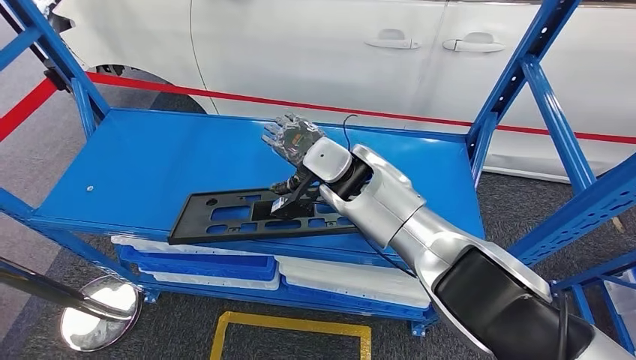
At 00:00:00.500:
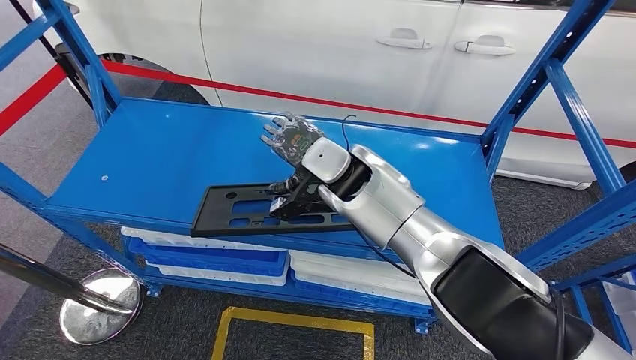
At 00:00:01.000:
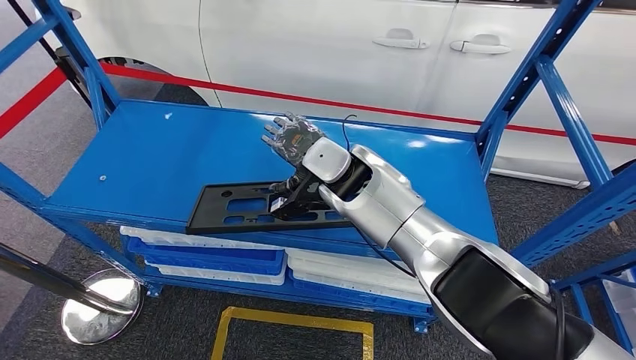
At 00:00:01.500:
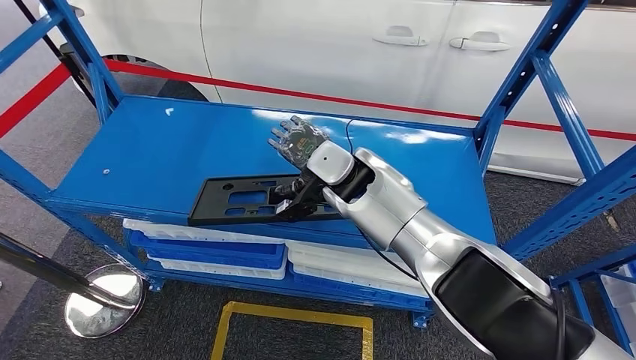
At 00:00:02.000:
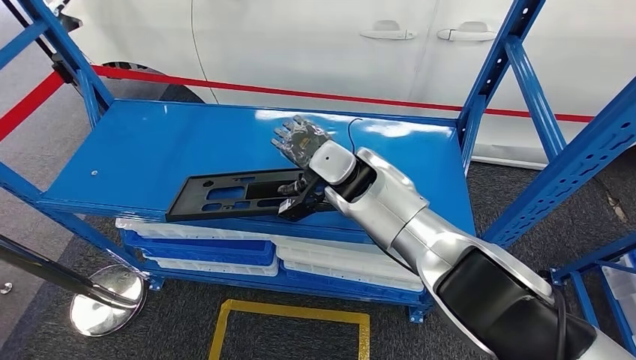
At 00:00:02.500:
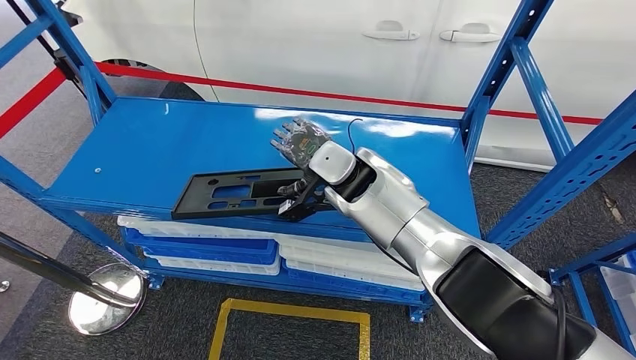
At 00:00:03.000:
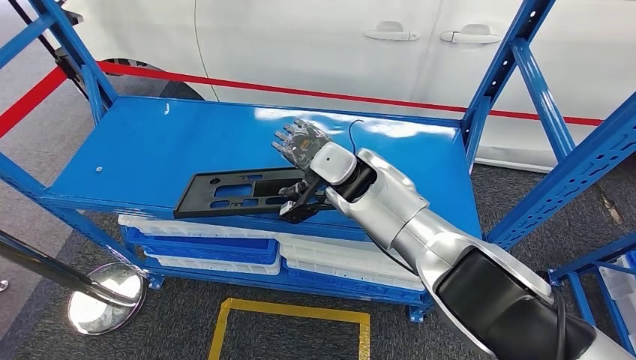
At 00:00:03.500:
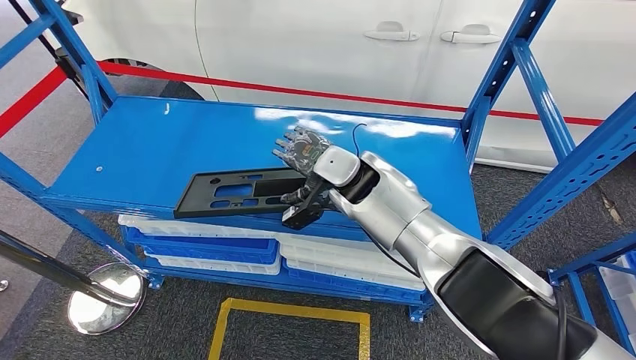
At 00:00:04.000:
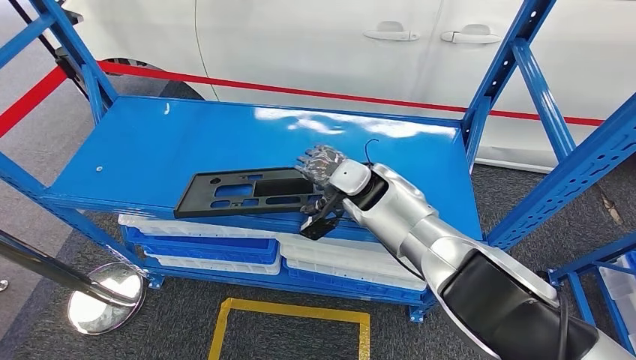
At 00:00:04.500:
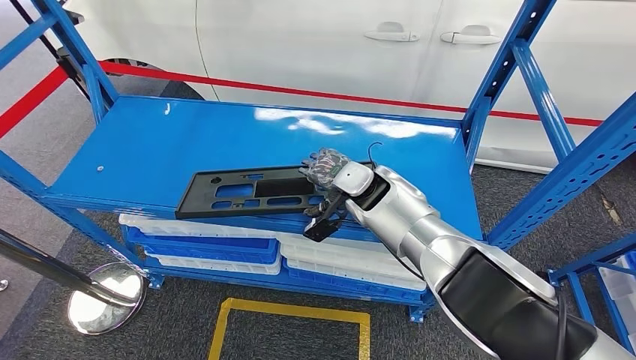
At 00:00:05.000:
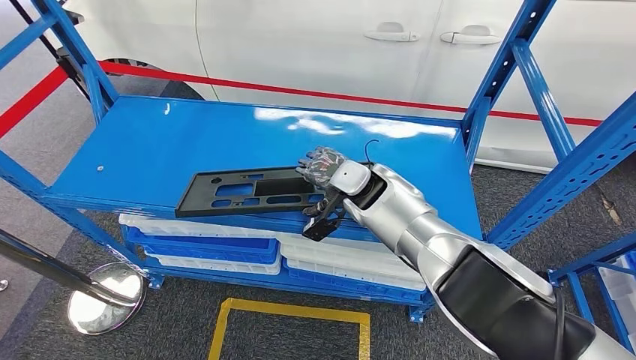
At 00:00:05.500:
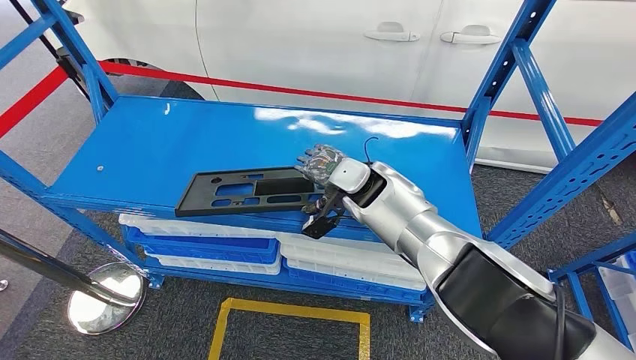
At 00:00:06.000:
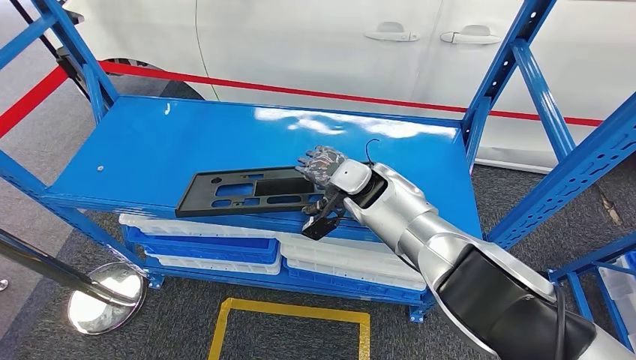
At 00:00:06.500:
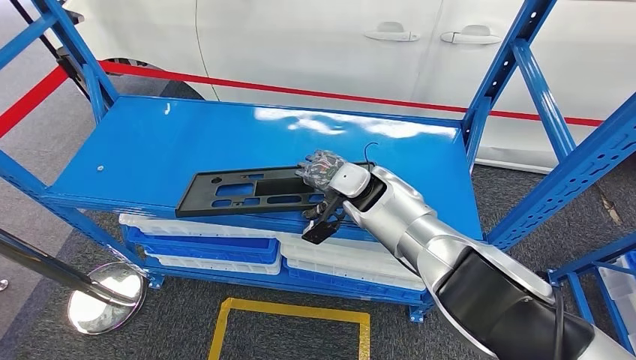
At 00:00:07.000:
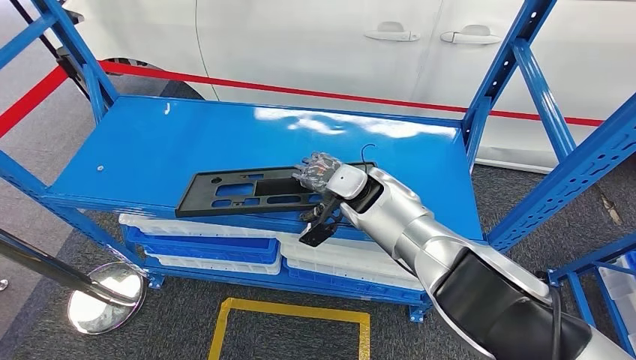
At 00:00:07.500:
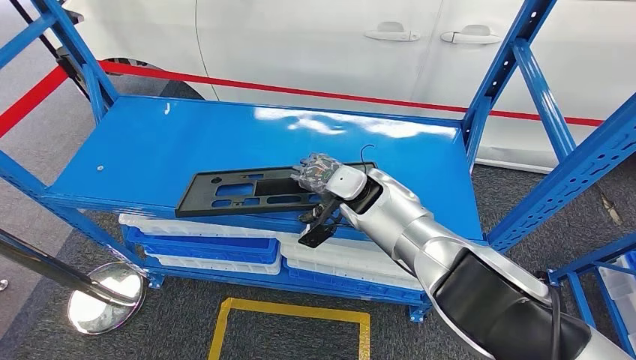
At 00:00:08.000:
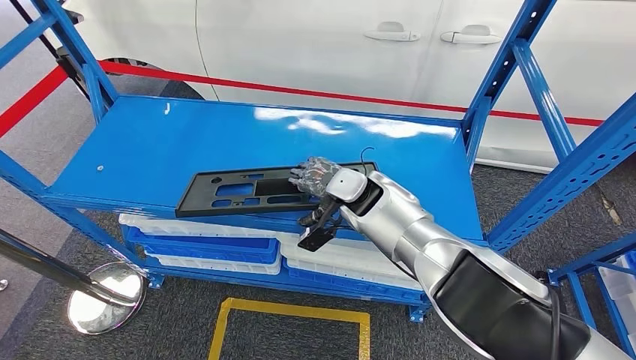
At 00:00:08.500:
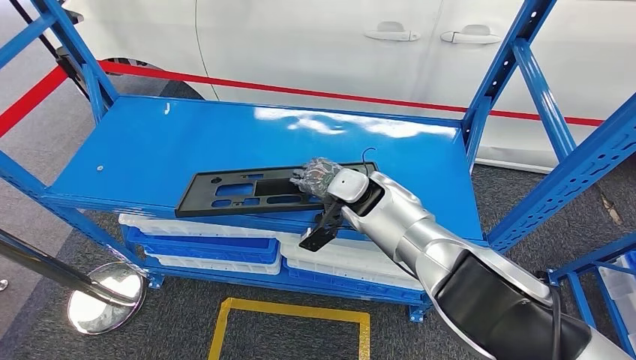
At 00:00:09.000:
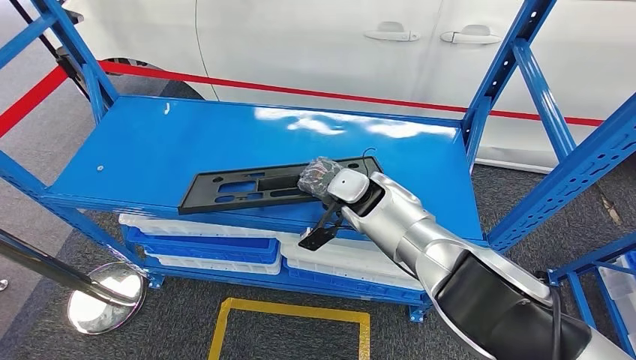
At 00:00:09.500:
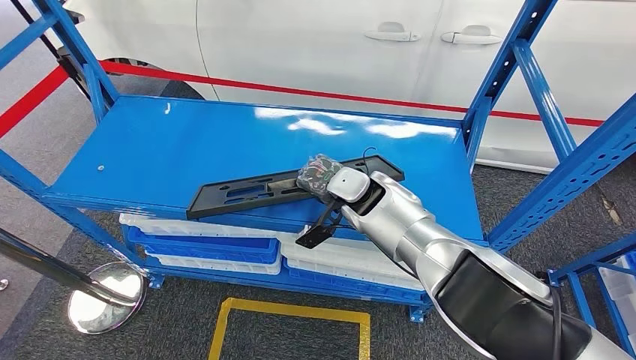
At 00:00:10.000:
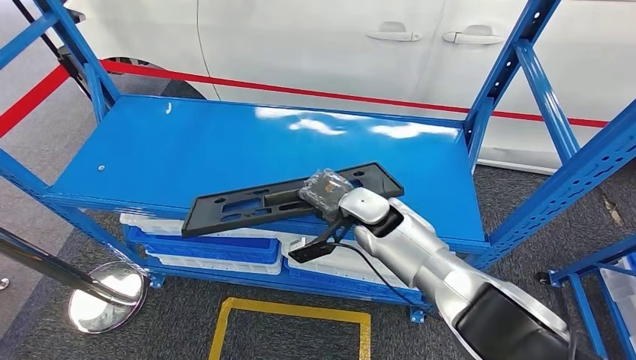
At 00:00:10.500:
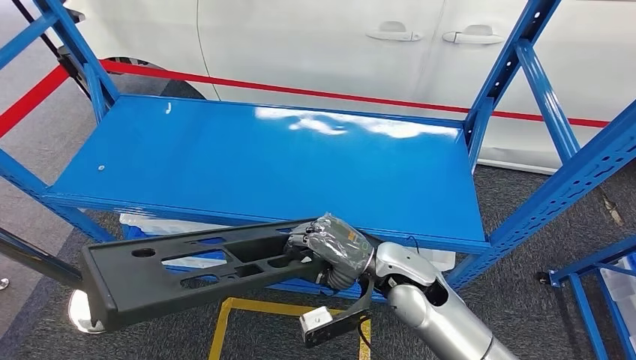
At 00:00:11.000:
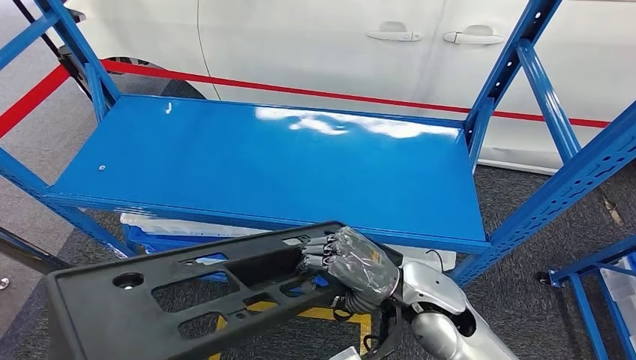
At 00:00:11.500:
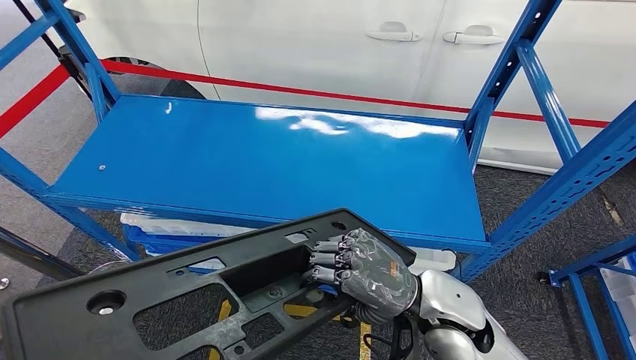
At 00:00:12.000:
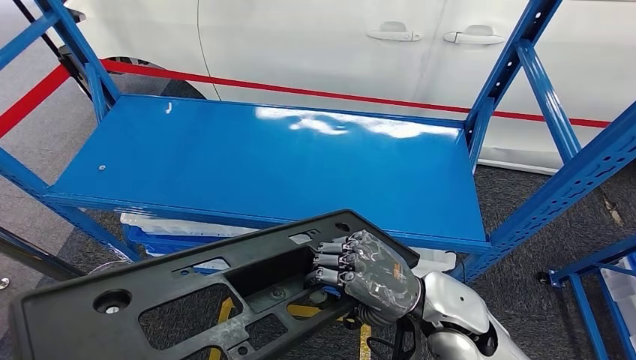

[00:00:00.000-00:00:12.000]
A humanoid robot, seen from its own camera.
Step, 00:00:00.000 to 00:00:10.500: Pick up the large material from the shelf.
00:00:04.000 to 00:00:08.000: The hands make only small movements.
00:00:08.000 to 00:00:10.000: The right hand shifts by roughly 5 cm.

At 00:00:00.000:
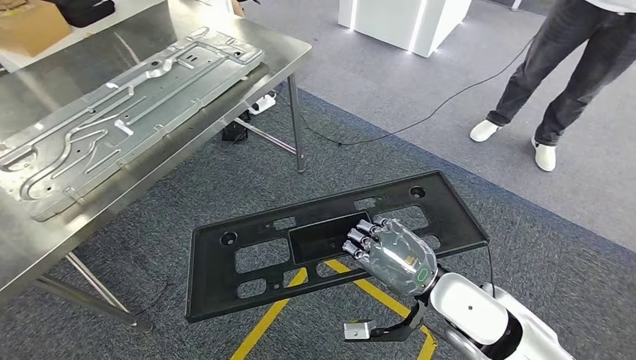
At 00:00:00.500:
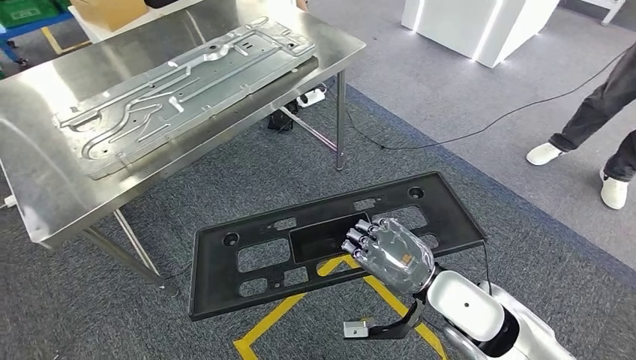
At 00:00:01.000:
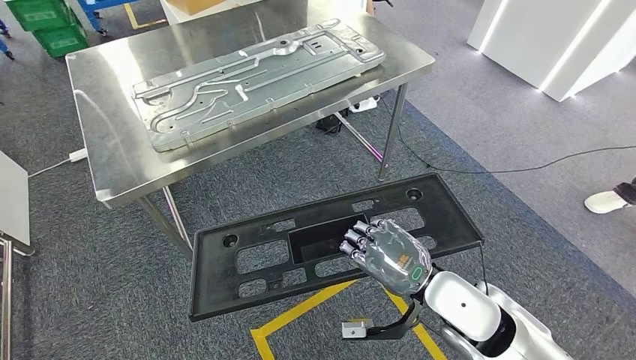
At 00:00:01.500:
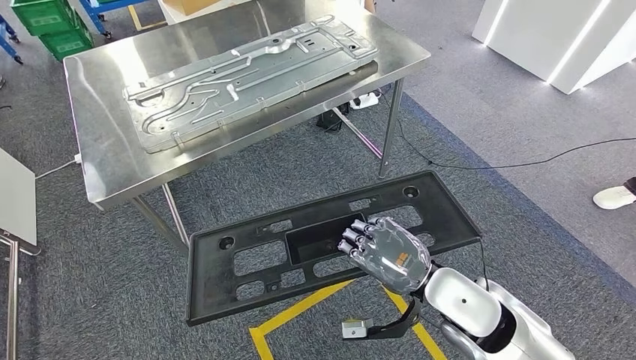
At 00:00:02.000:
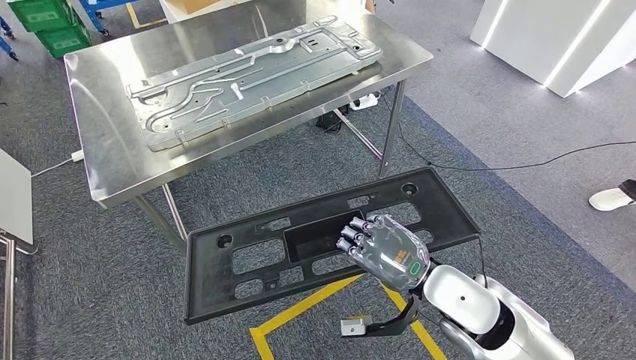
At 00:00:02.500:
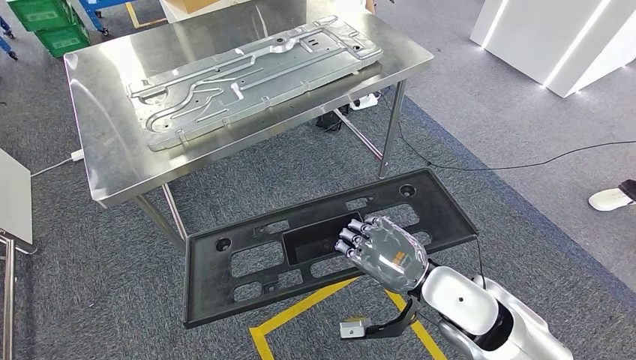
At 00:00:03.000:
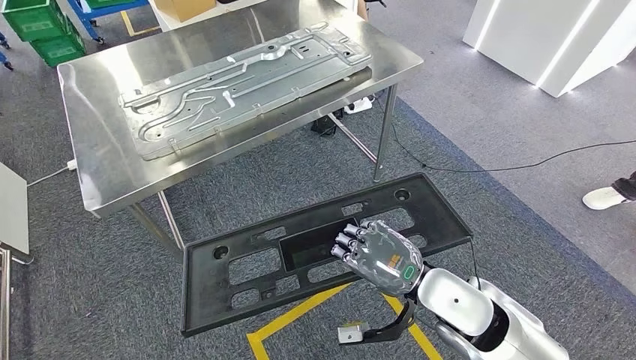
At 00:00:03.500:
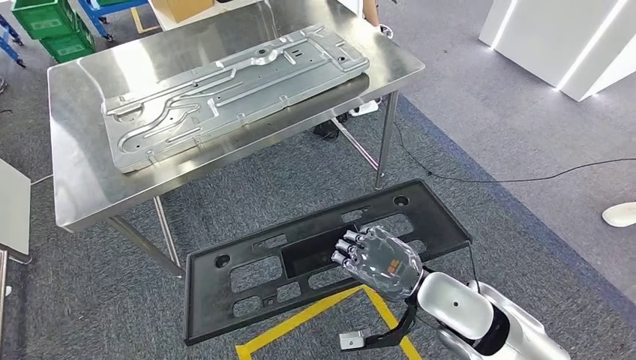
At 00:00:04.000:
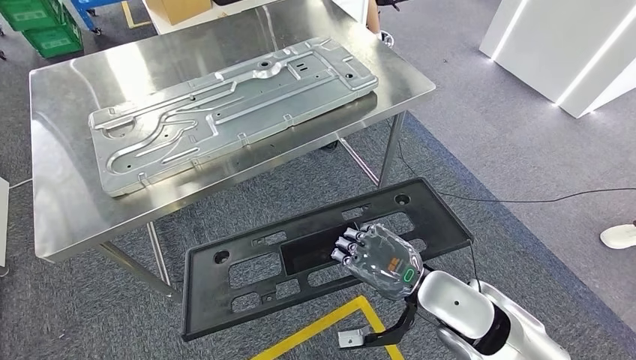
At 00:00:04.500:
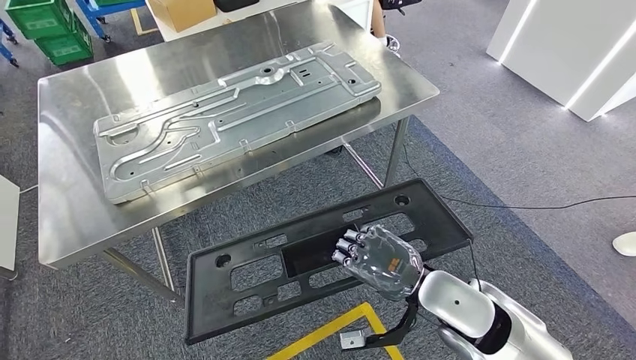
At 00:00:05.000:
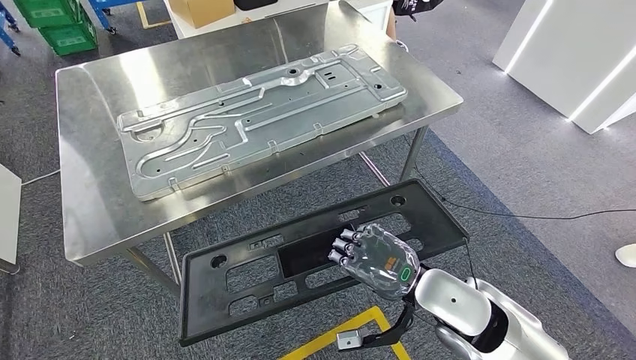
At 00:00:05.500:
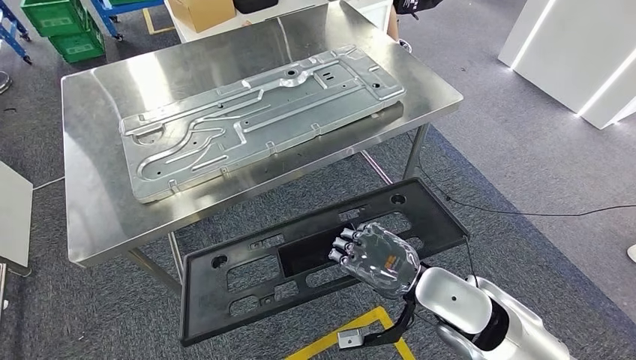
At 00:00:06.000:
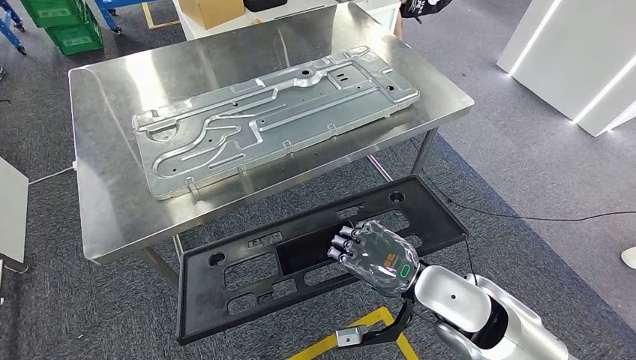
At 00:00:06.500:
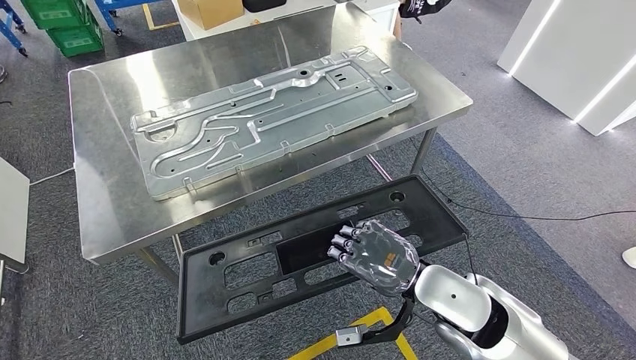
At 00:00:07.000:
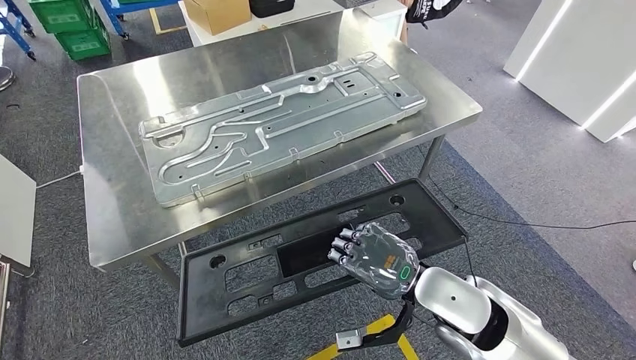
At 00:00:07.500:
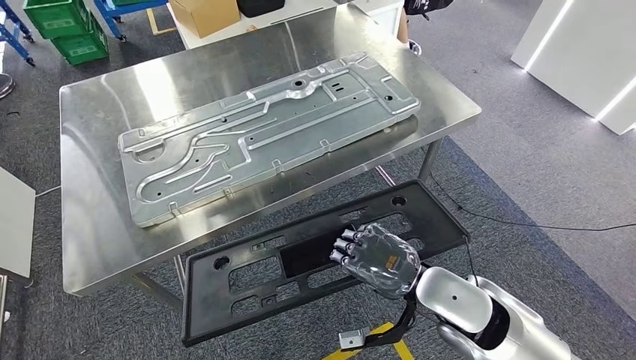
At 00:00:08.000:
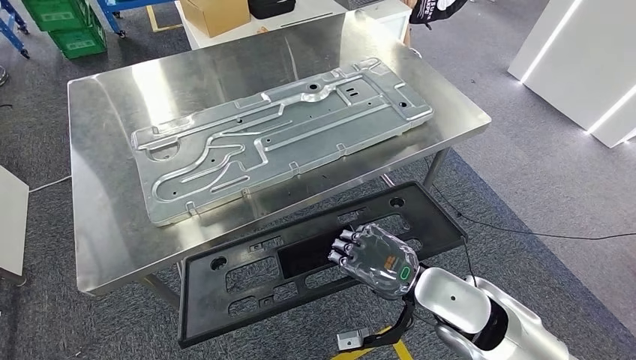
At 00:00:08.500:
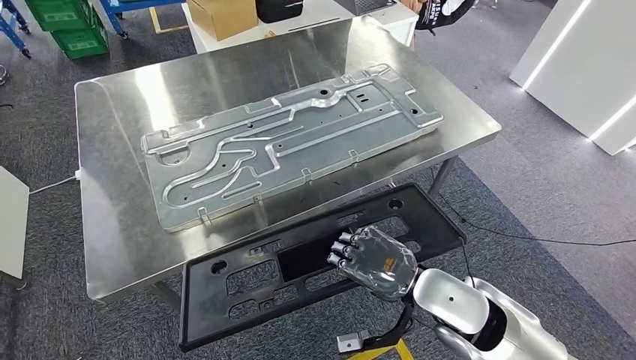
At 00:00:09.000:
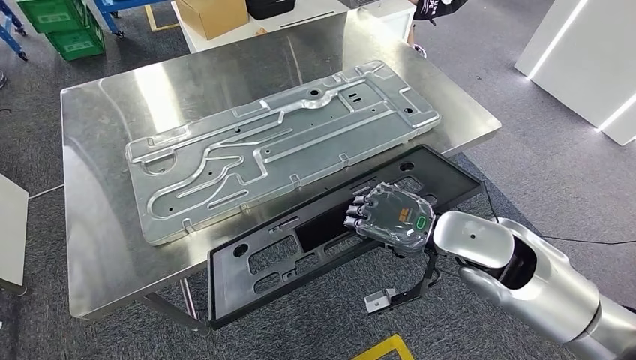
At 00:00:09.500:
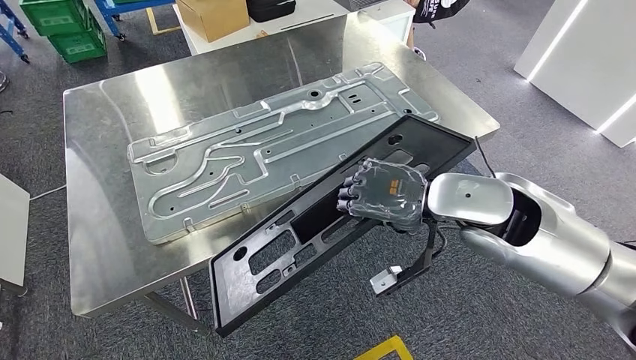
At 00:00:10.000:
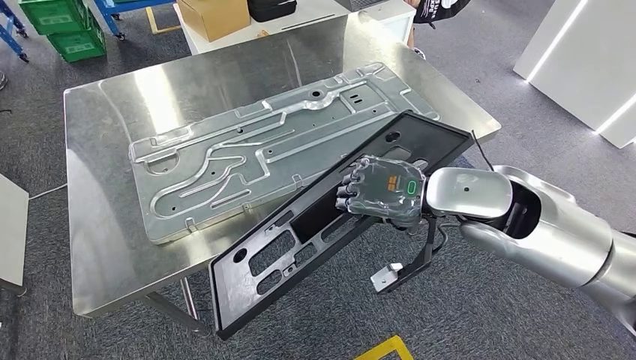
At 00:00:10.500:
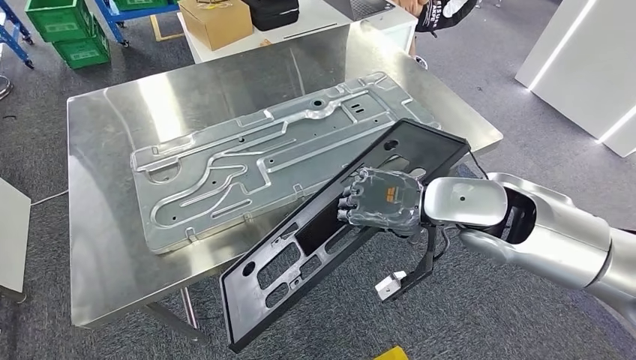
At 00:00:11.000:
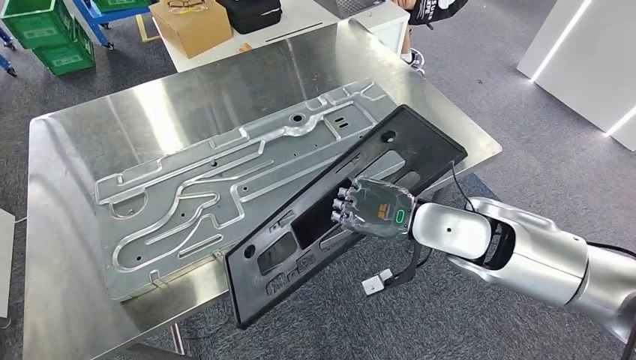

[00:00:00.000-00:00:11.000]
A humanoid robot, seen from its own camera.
Step, 00:00:00.000 to 00:00:03.500: Move the large material to the workbench.
